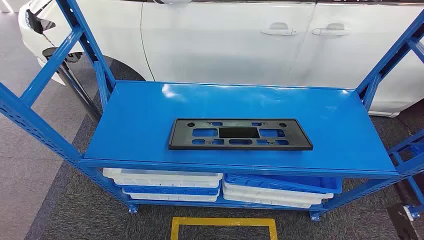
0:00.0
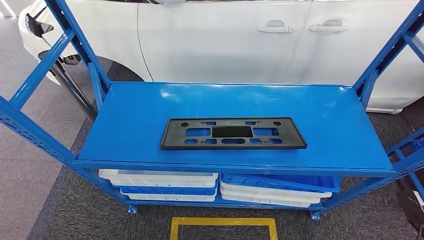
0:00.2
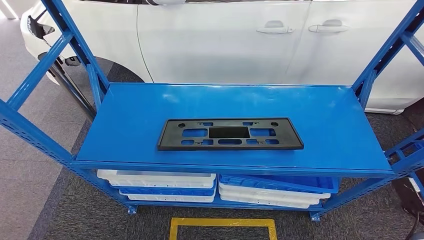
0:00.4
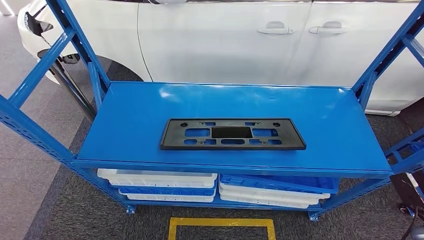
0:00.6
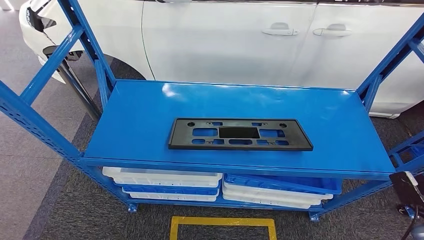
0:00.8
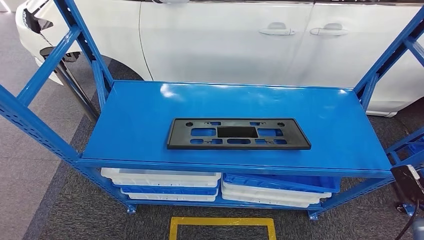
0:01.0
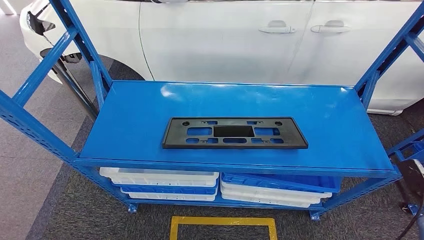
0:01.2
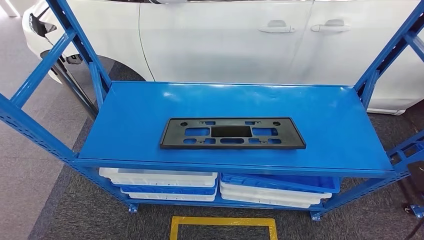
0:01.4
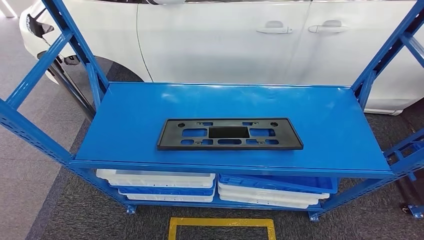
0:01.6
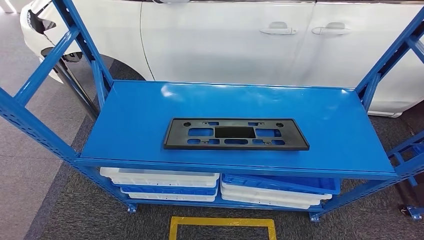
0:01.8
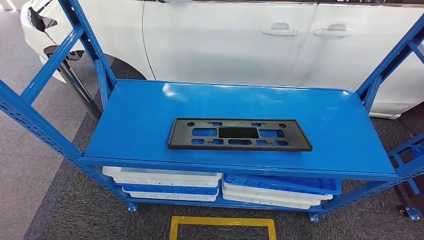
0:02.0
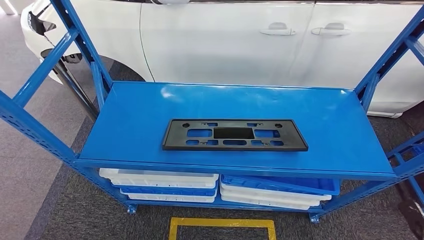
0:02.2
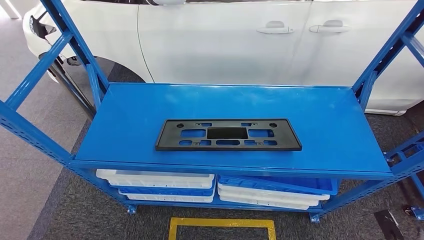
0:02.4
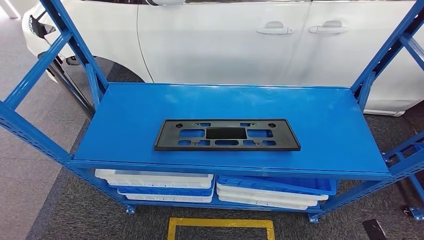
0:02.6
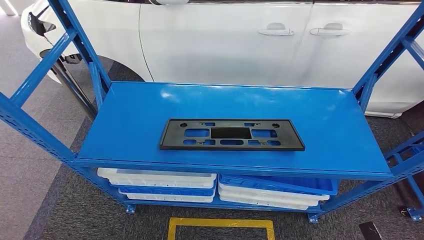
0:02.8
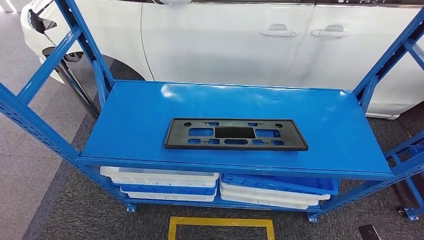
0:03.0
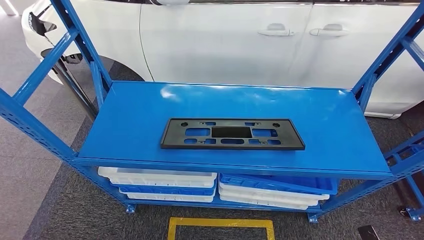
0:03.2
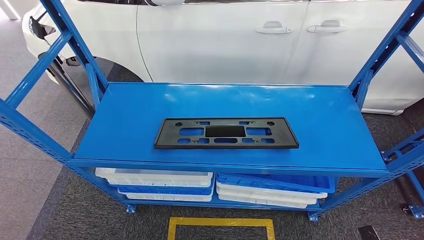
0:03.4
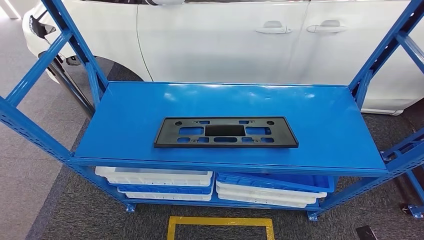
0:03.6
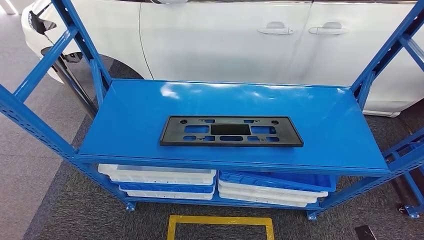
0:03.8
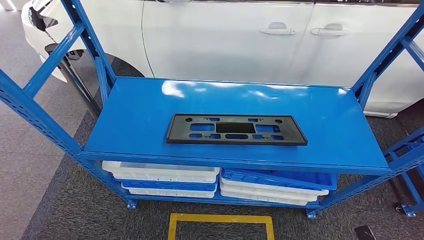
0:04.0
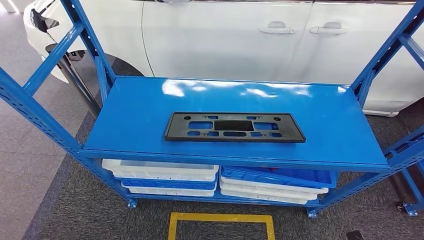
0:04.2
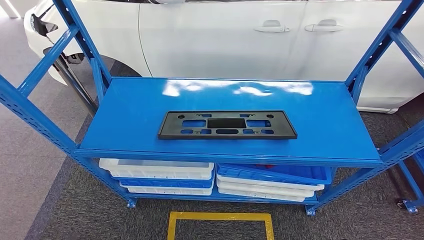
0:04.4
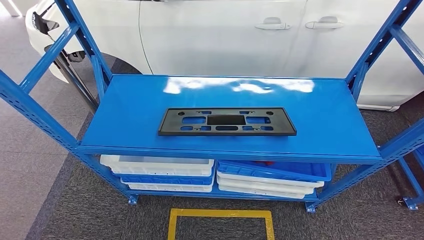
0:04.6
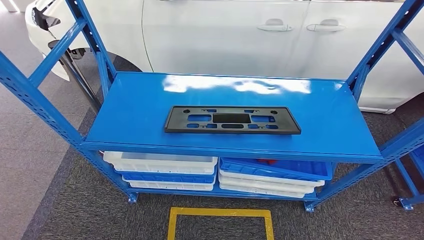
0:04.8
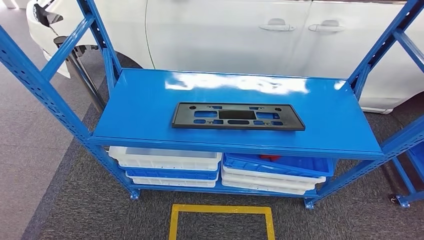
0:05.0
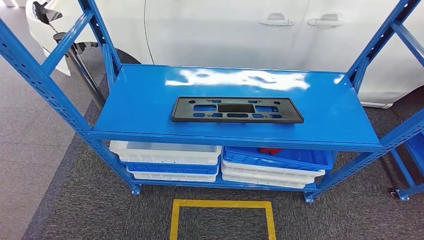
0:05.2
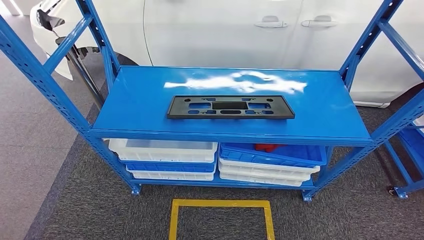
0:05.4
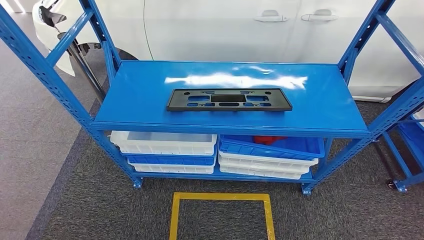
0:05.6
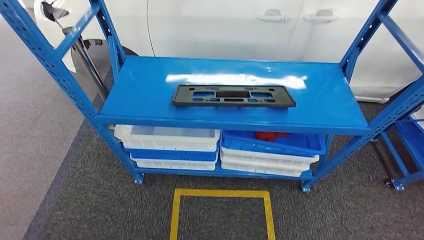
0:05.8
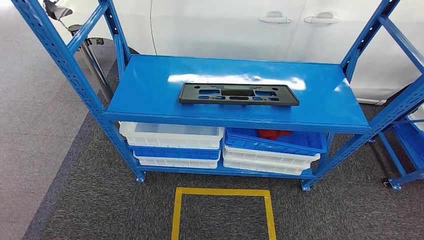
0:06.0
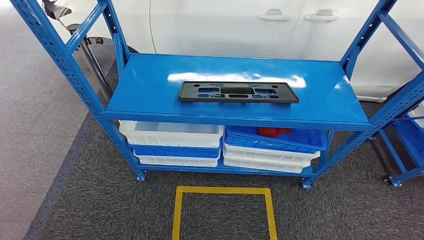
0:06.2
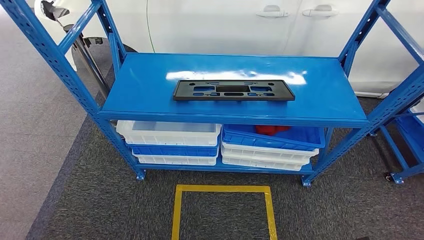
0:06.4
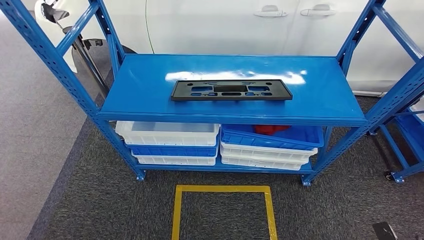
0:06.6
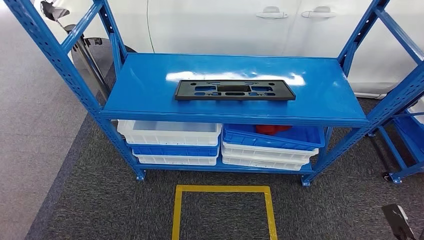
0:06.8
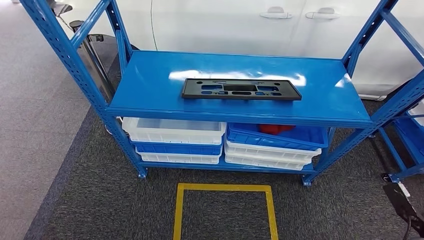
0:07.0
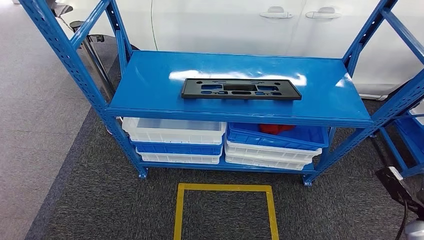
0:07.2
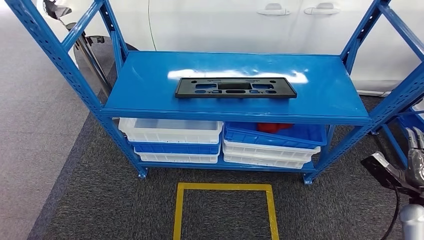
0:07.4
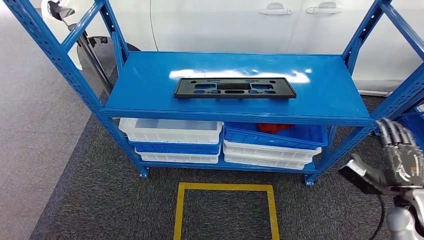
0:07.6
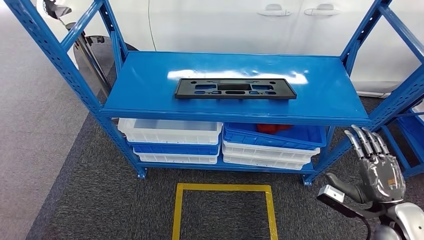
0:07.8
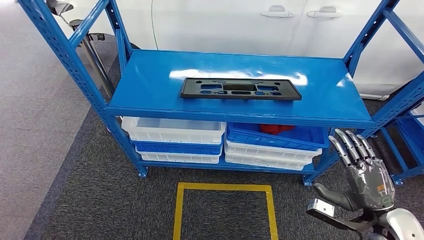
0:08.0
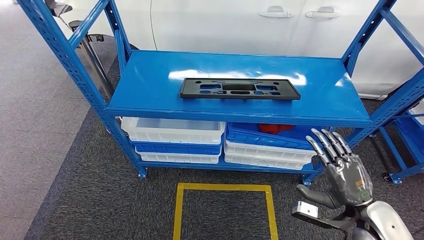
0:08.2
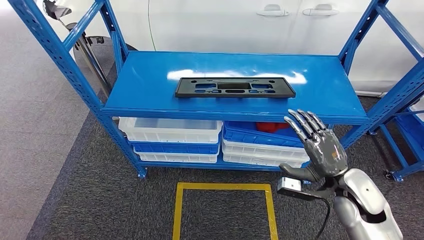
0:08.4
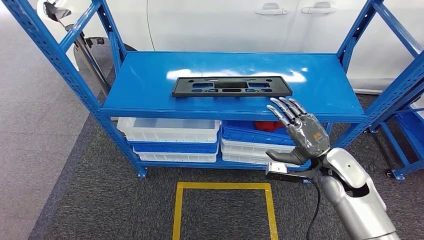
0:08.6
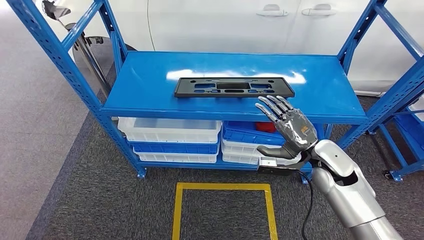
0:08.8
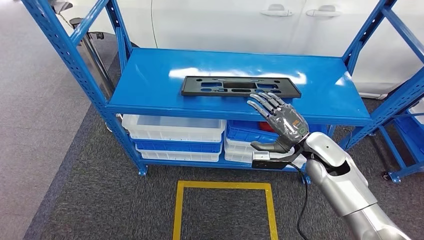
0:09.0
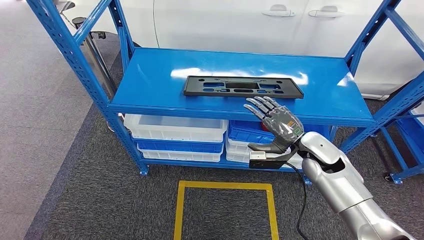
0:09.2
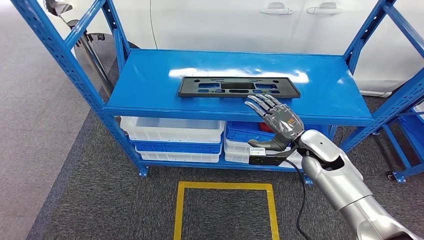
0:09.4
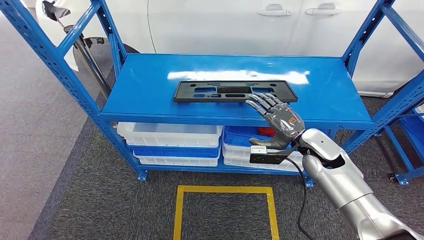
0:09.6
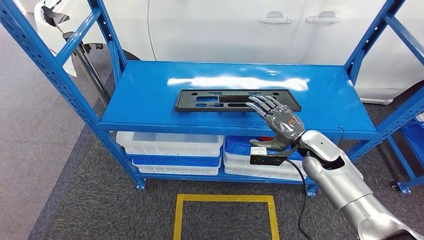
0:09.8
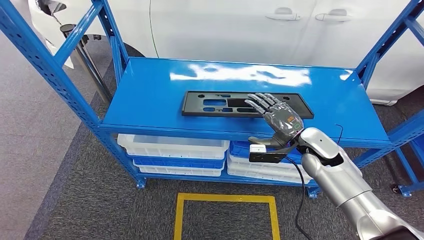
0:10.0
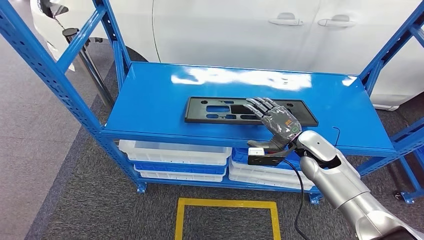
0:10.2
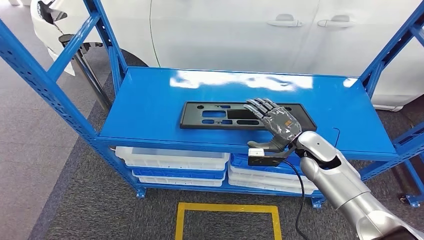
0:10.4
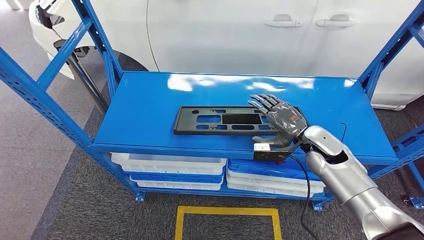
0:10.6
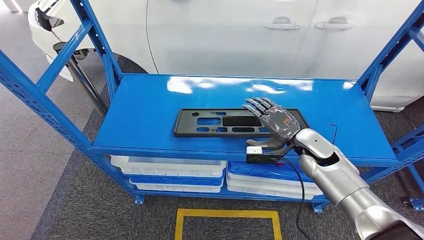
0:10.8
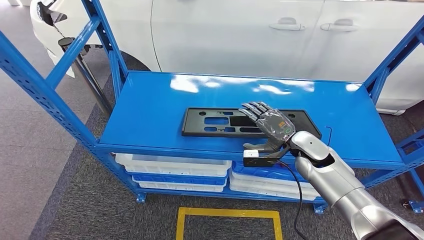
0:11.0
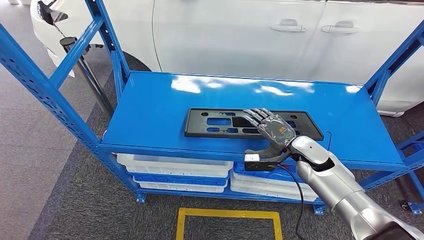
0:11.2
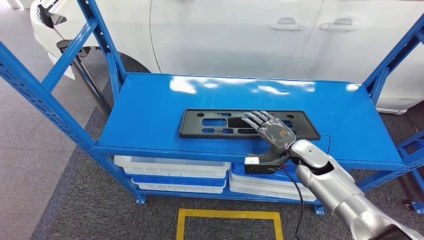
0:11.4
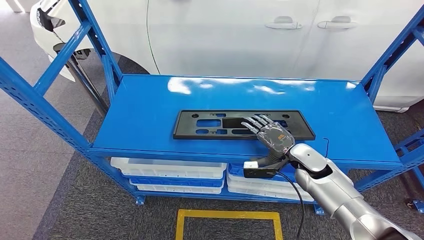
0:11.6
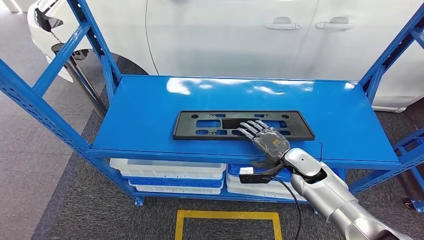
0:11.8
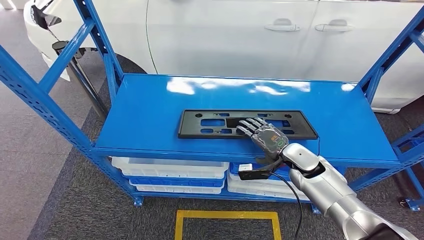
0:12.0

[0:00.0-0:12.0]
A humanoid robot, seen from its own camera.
0:01.6 to 0:03.0: The right hand is displaced downward, to the left and backward by some 20 cm.

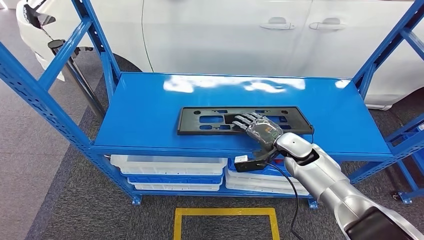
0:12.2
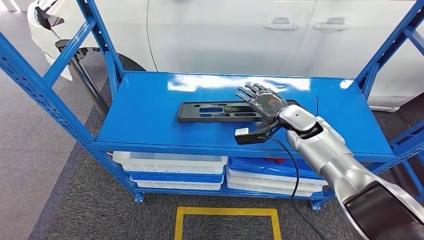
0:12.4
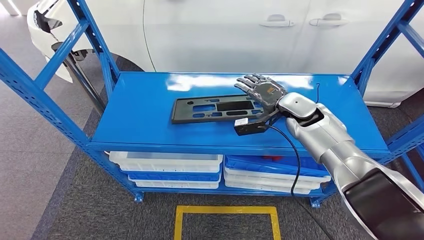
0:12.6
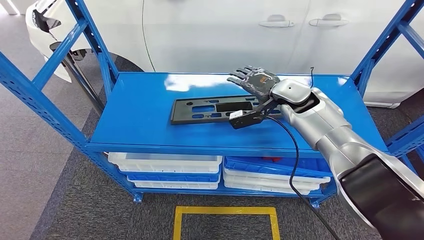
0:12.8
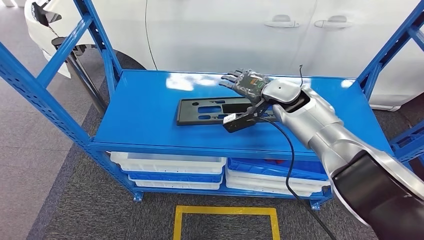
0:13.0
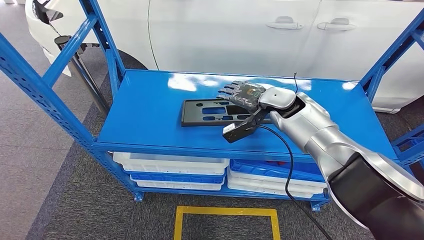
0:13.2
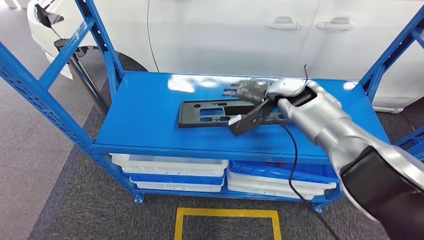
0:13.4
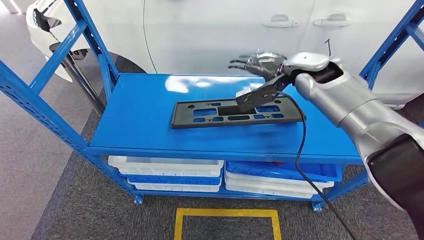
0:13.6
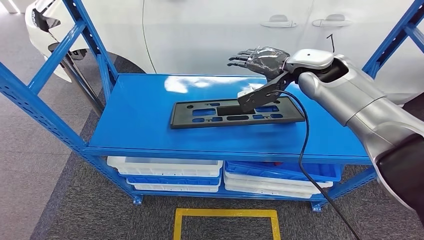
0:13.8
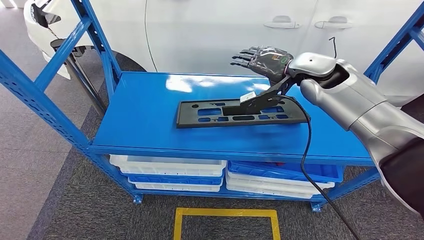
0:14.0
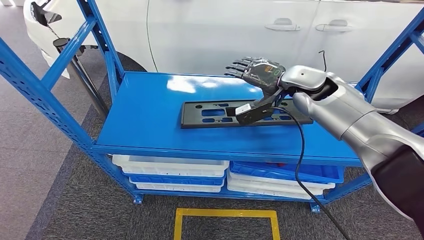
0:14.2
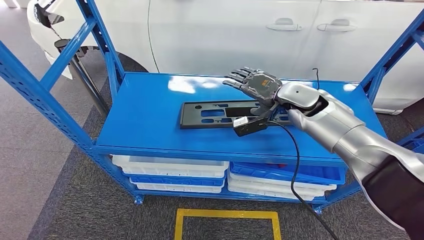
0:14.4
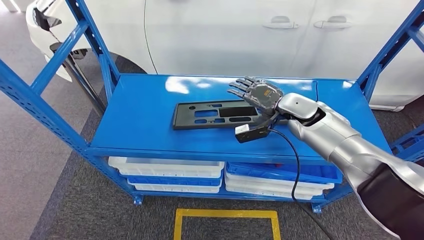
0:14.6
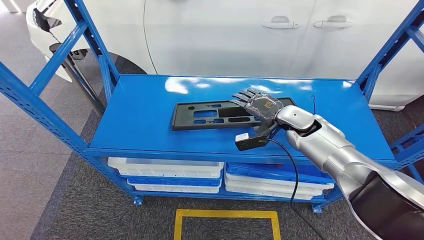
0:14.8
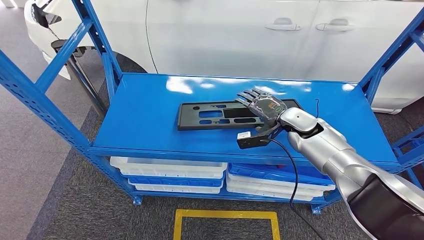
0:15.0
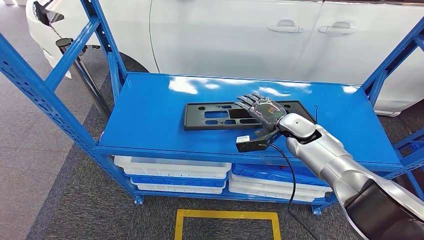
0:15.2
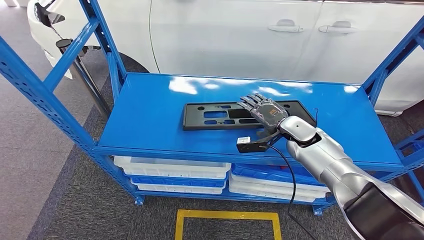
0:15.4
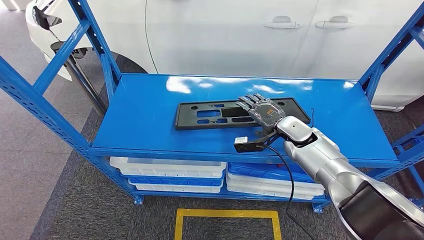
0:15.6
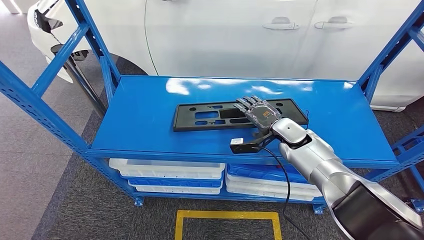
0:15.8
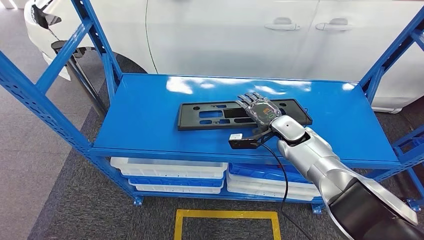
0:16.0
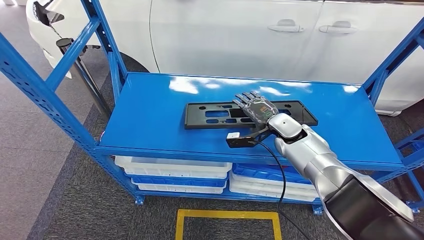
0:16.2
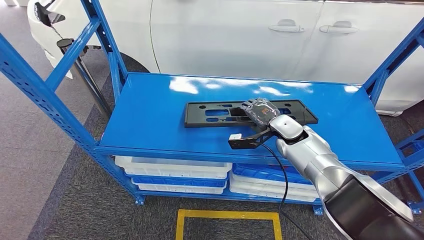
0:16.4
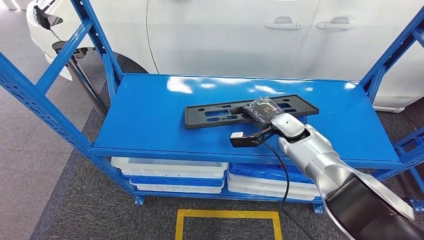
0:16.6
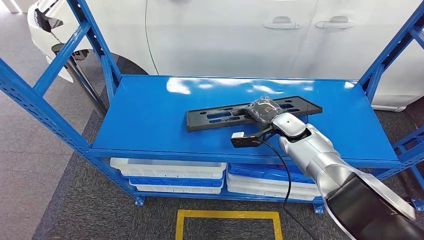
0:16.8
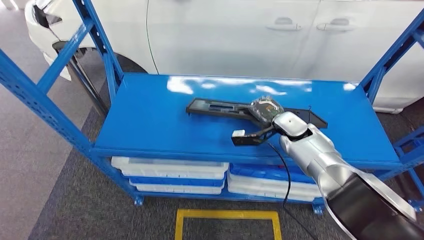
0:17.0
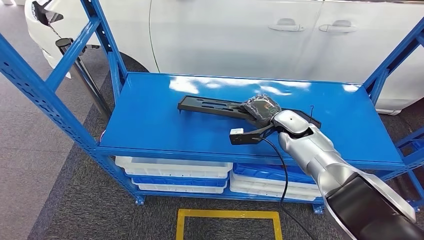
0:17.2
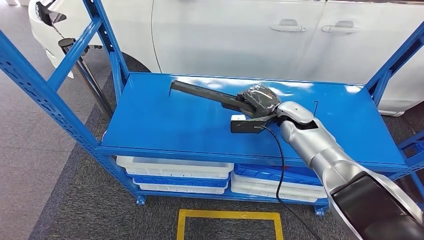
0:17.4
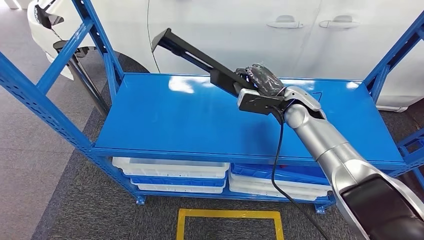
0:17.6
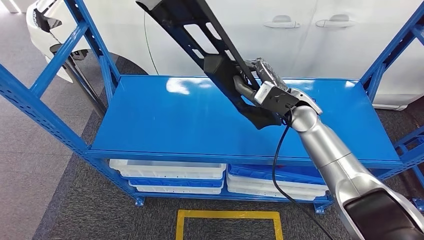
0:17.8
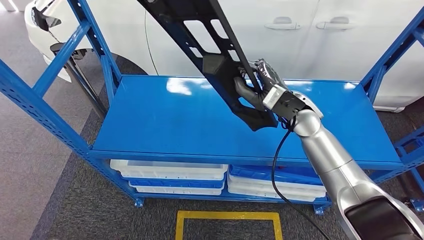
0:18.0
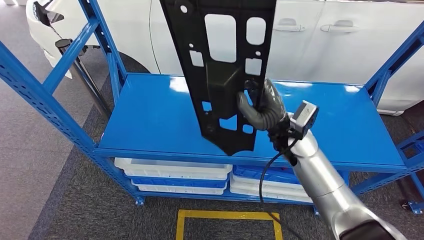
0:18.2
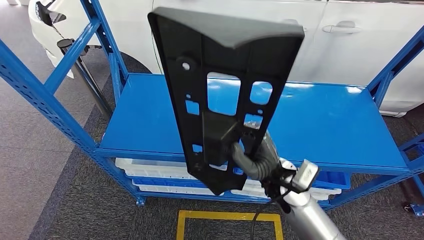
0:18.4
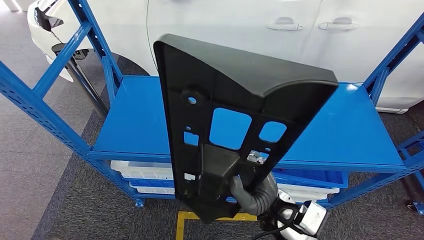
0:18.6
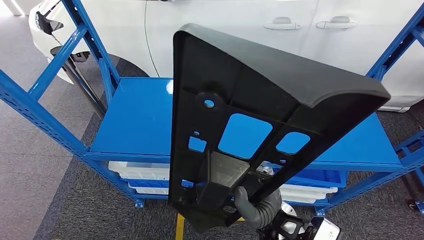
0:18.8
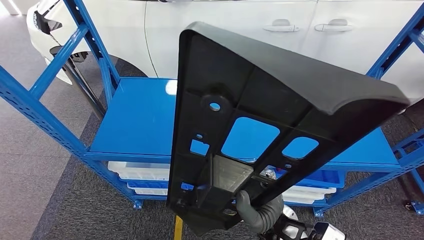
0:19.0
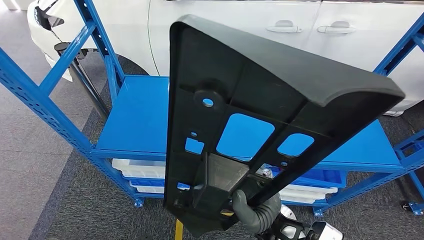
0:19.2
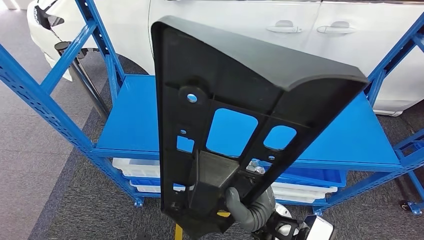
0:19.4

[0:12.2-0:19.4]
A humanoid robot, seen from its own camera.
Step, 0:12.2 to 0:17.4: Pick up the large parts from the shelf.
0:15.0 to 0:16.6: The hands move only a little.
